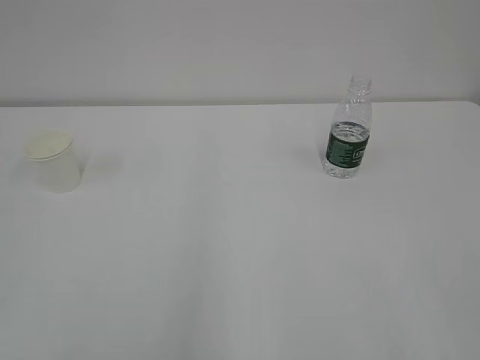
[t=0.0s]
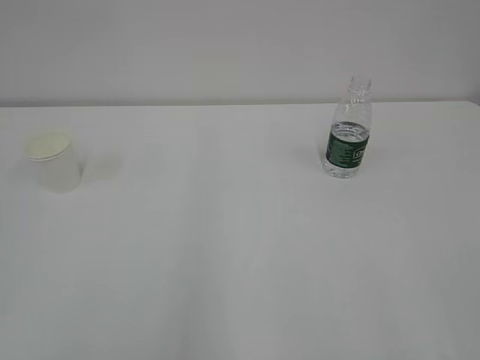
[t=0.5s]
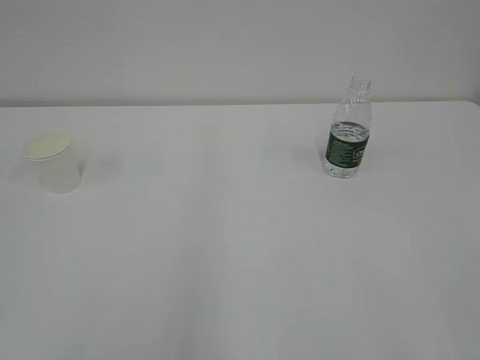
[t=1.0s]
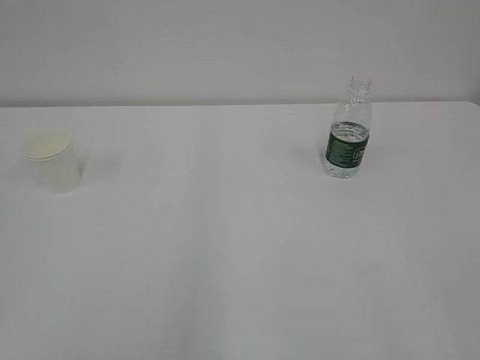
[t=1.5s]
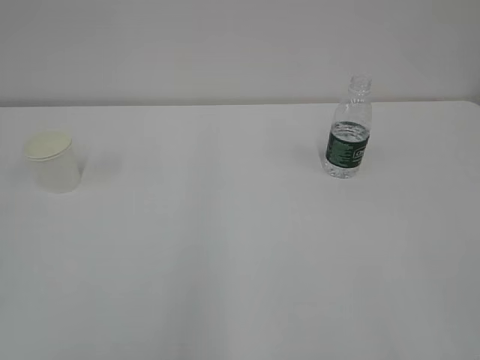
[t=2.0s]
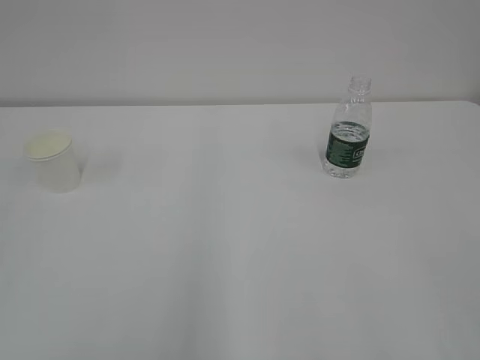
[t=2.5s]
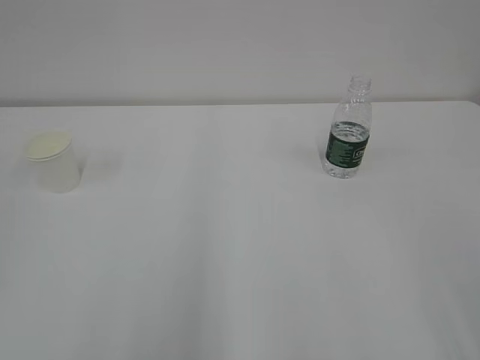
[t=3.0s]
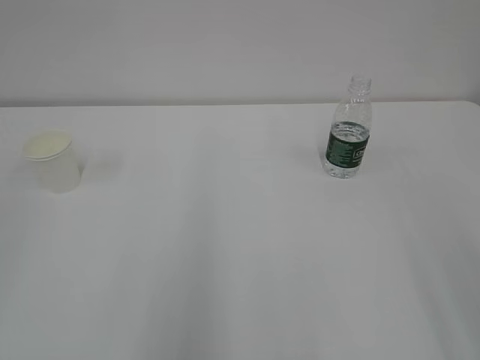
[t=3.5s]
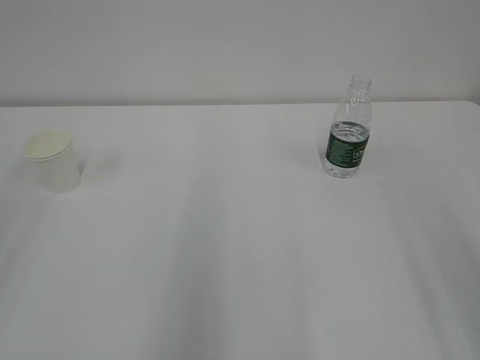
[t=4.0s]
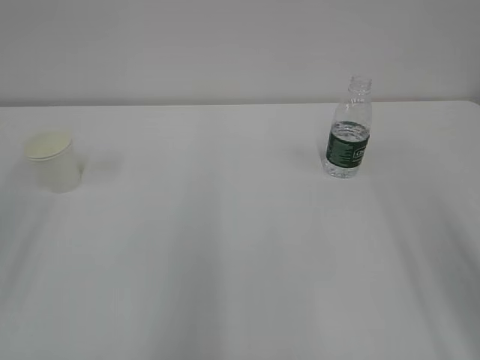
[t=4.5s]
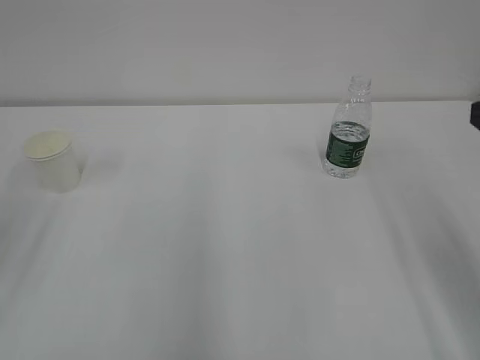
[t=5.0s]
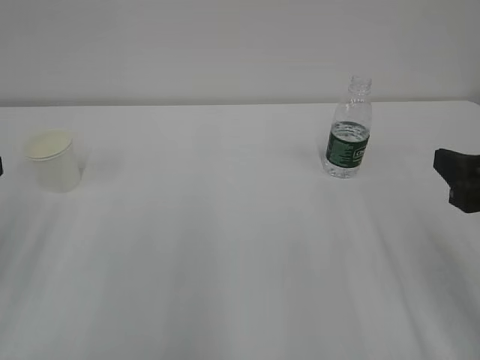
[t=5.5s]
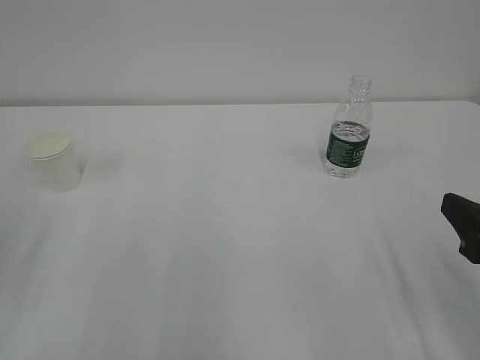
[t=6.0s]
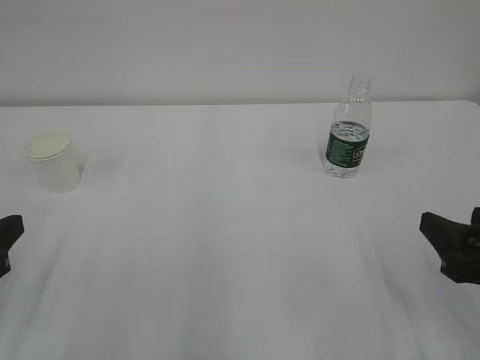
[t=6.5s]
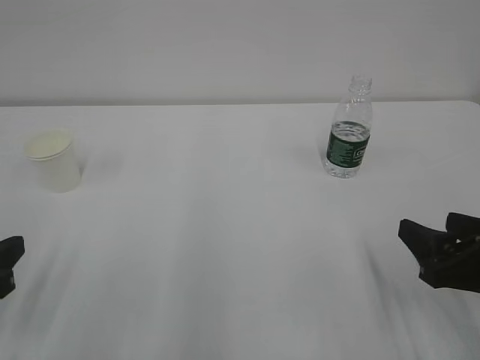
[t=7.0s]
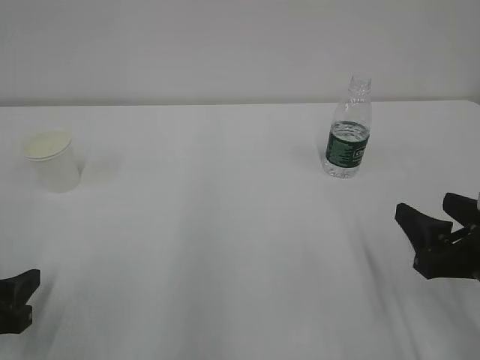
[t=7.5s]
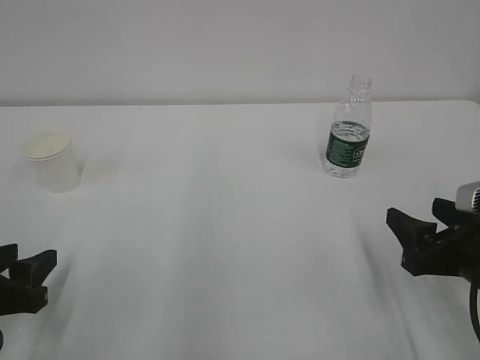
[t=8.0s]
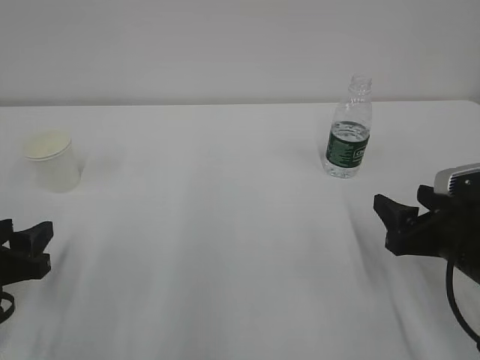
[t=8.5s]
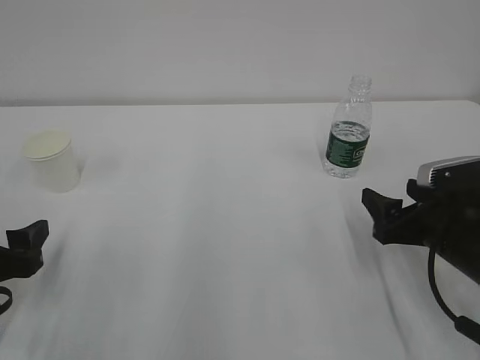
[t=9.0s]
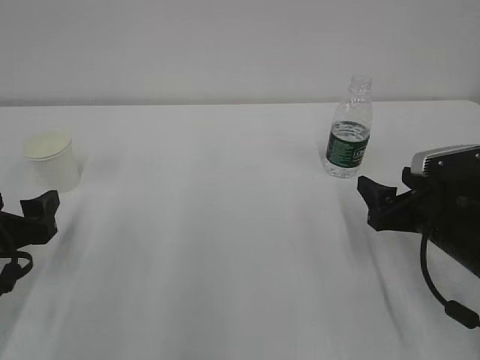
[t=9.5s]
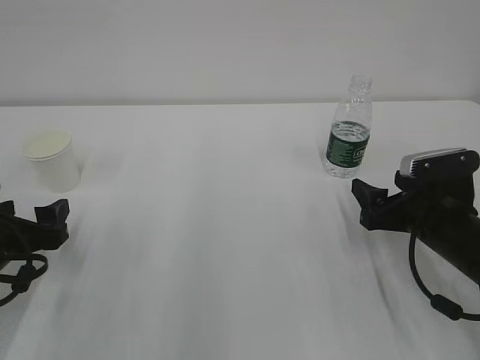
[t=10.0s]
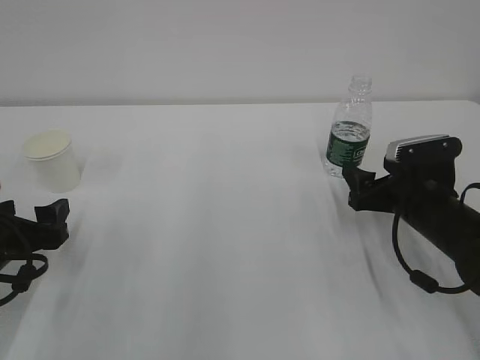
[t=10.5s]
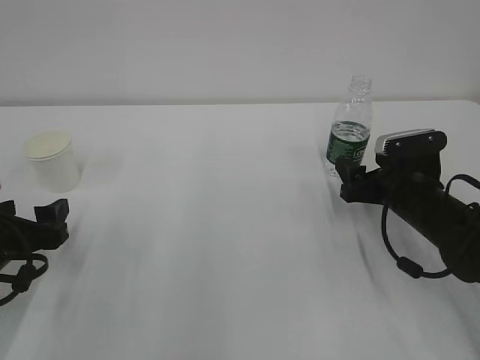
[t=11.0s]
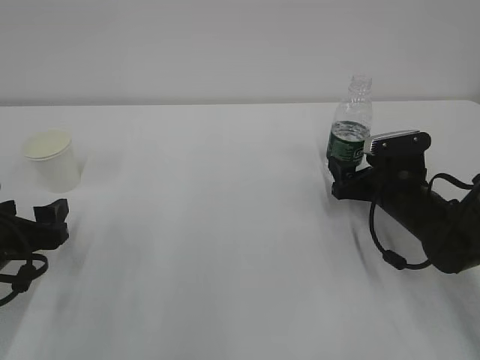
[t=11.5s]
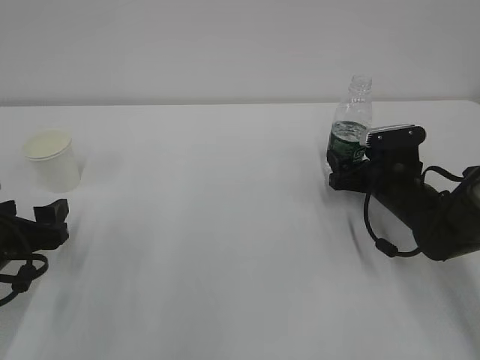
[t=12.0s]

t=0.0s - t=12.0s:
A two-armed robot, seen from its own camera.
t=4.0s - t=6.0s: The right gripper travels downward and forward by roughly 15 cm.
t=6.0s - t=8.0s: The left gripper is displaced downward by roughly 10 cm. The right gripper moves downward, some 5 cm.
t=8.0s - t=10.0s: Both grippers move forward, about 5 cm. The left gripper opens.
t=10.0s - t=12.0s: The right gripper travels forward by roughly 10 cm.

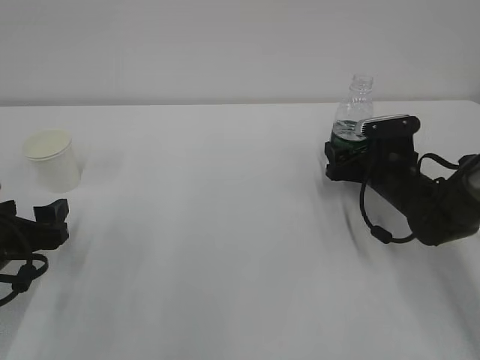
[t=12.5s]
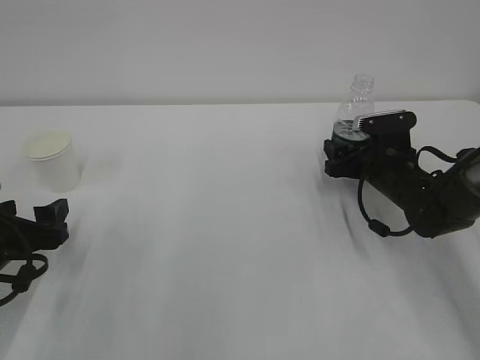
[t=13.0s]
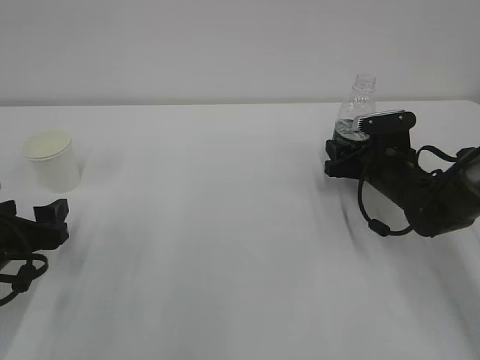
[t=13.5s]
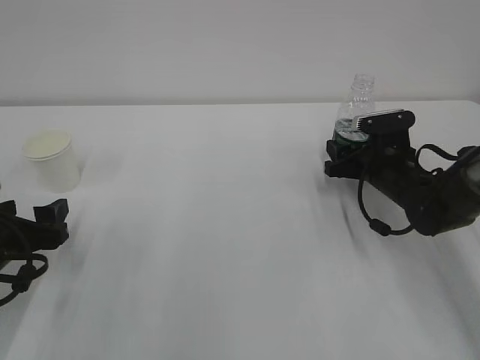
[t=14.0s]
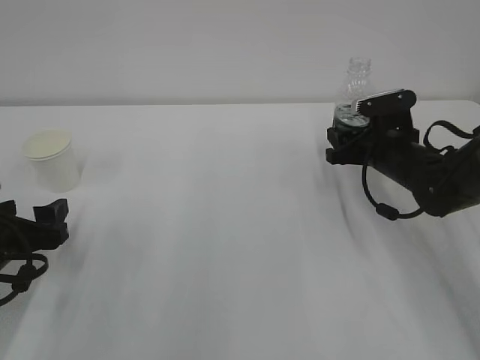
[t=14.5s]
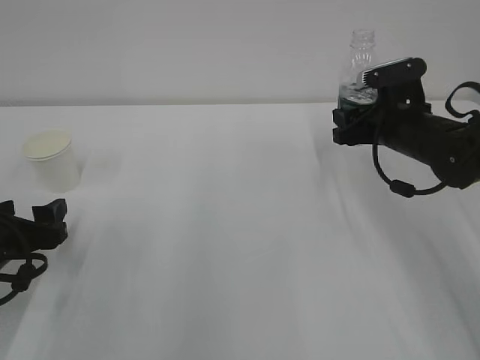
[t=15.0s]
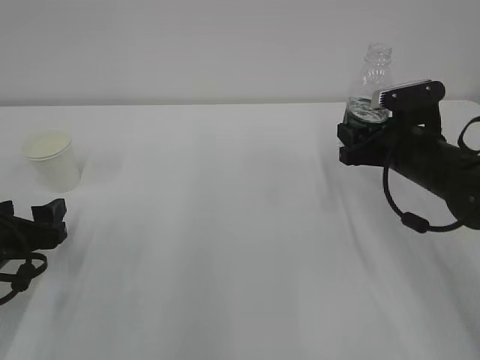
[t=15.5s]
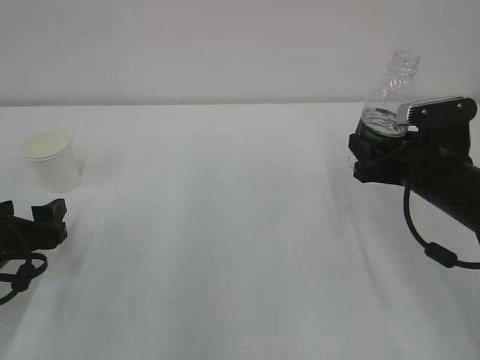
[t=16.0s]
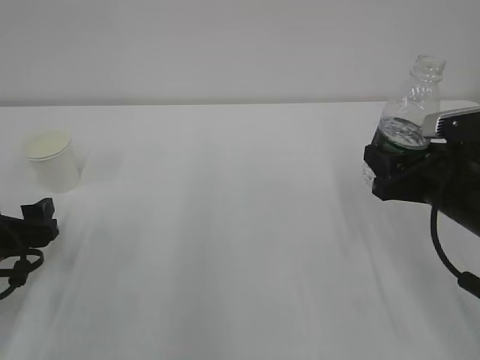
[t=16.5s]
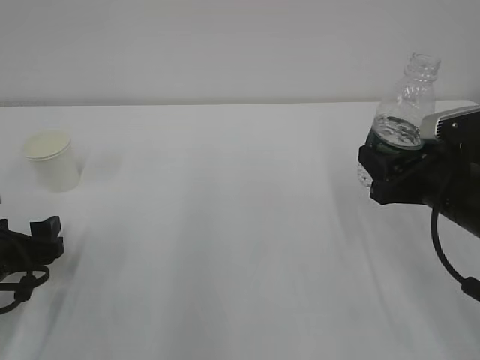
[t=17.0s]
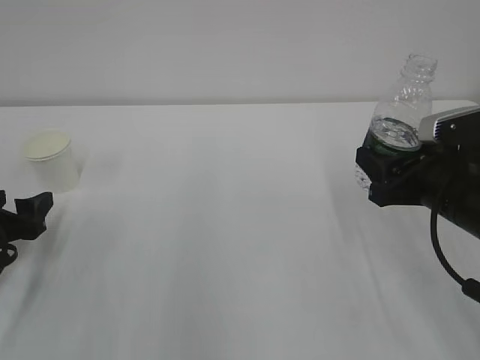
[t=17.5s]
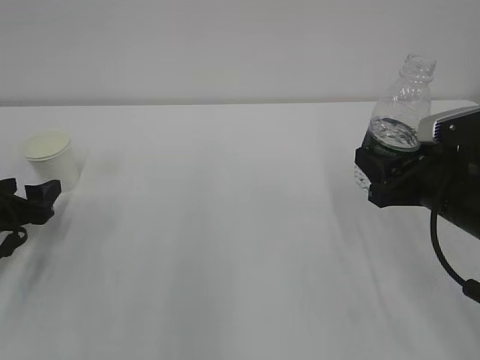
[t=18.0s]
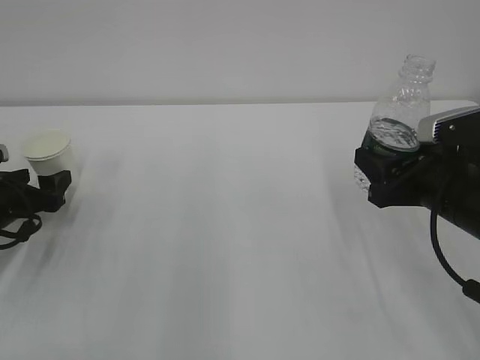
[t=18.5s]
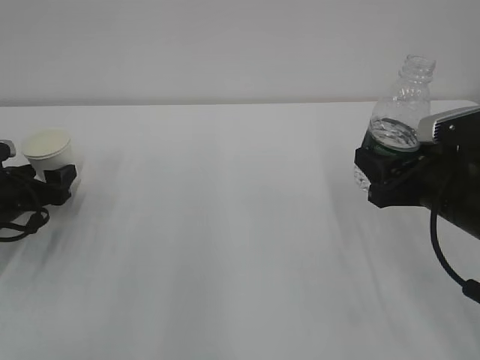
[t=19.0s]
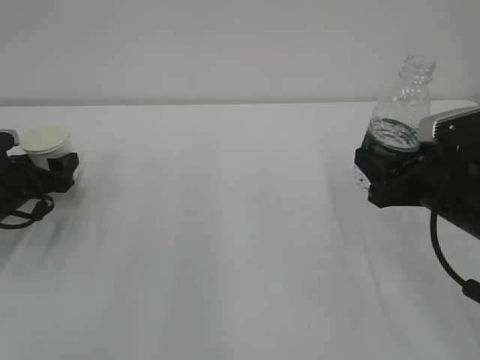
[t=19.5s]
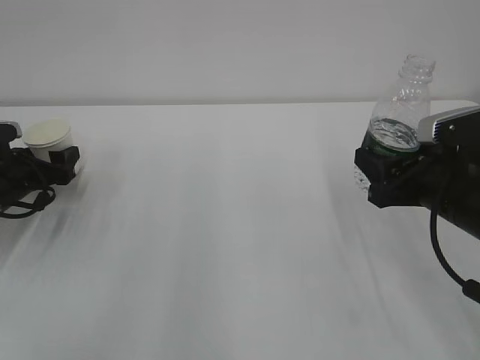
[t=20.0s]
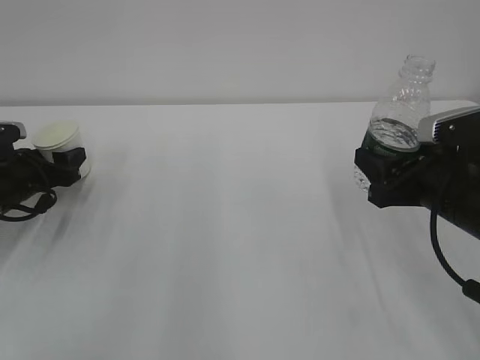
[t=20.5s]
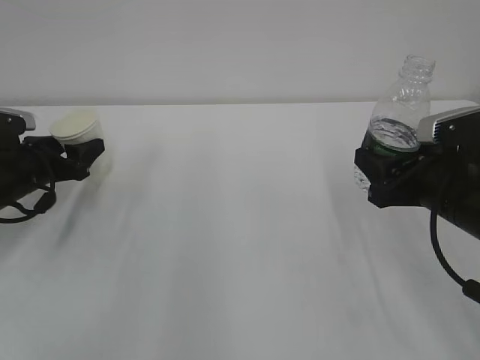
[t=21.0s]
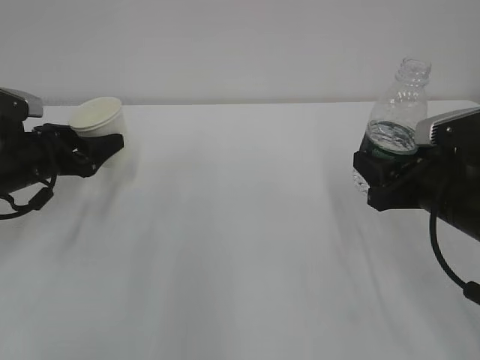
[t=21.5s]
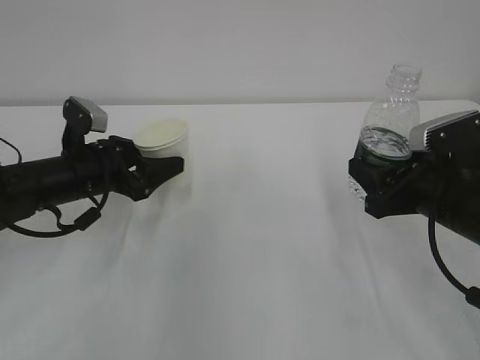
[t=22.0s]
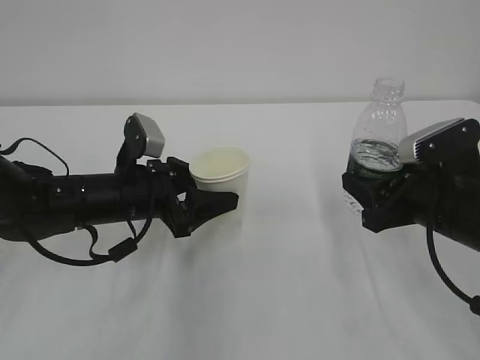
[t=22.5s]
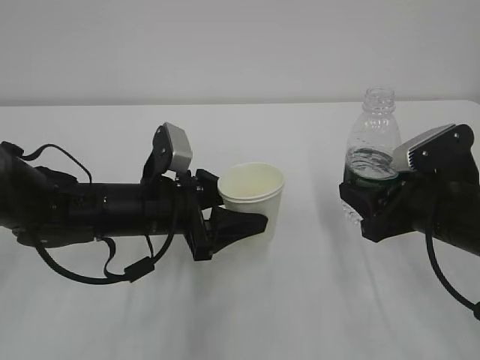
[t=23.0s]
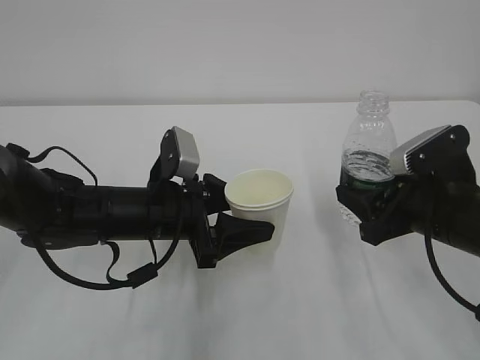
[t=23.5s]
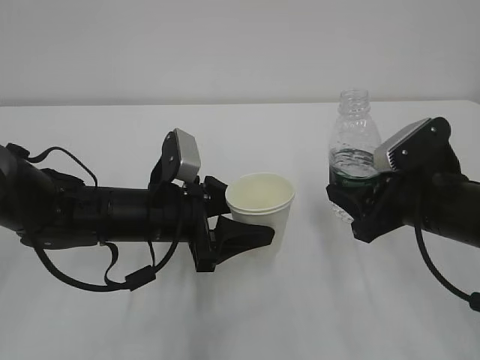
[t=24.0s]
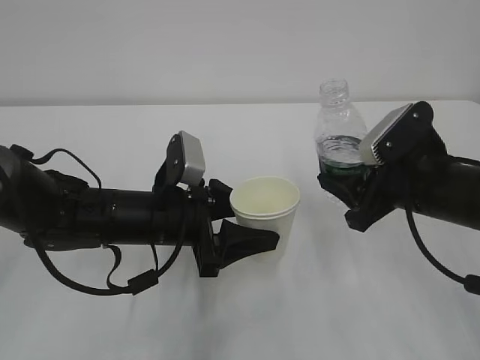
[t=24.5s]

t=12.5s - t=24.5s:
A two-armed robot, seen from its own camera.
t=12.5s - t=14.5s: The right gripper closes its fingers.
t=14.5s - t=16.5s: The right gripper heads backward, covering roughly 15 cm.
t=16.5s - t=18.5s: The left gripper heads forward, covering roughly 10 cm.
t=18.5s - t=20.5s: The left gripper goes approximately 5 cm forward, and closes.
t=20.5s - t=22.5s: The left gripper moves to the right, some 20 cm.
t=22.5s - t=24.5s: The left gripper changes place by about 5 cm.

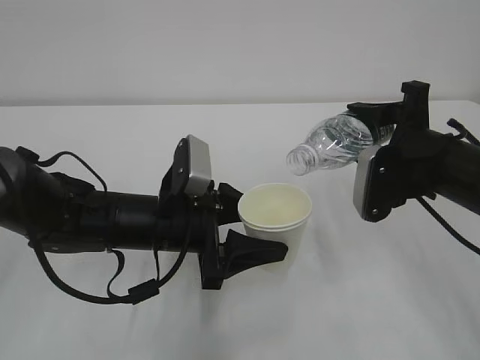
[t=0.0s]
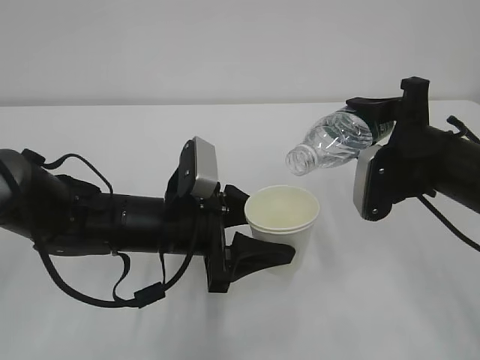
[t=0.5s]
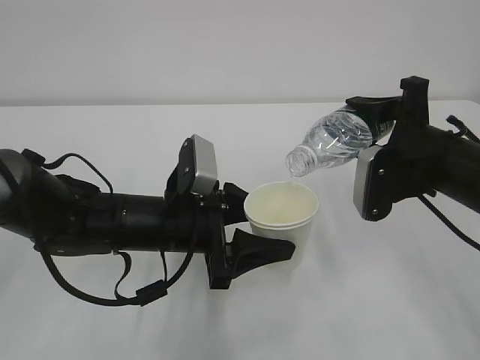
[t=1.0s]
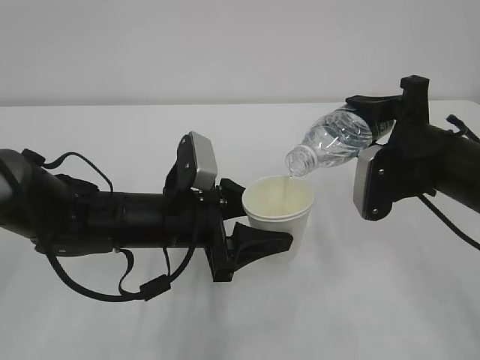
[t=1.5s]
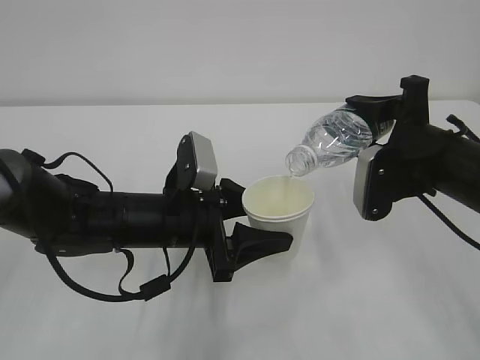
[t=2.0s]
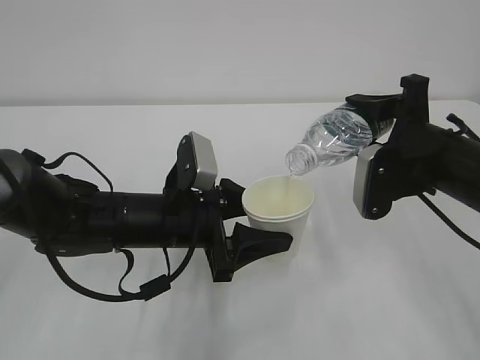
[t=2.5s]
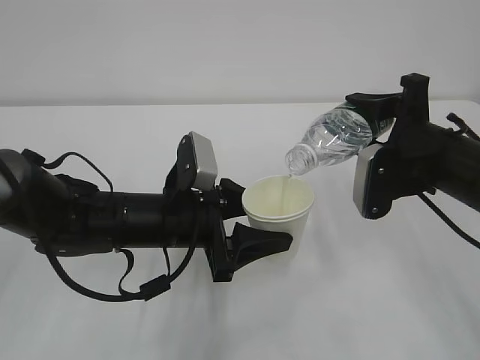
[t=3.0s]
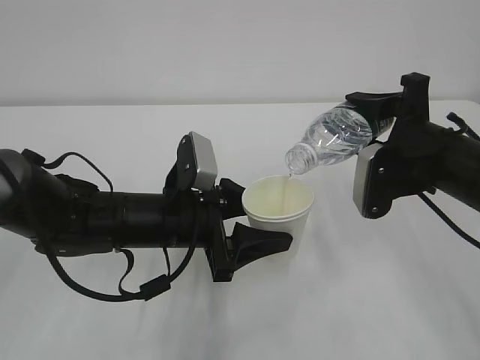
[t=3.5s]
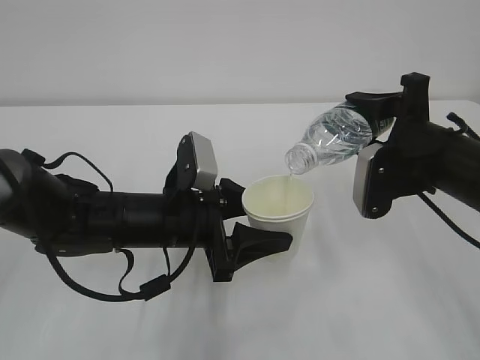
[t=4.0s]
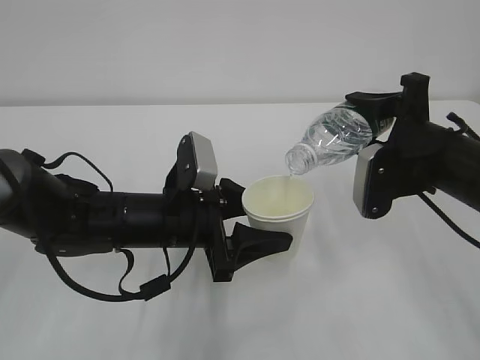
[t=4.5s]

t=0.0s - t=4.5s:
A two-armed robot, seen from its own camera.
t=0.0s - t=2.0s: Both grippers stay about where they are.
t=2.0s - t=4.5s: Both grippers stay about where they are.
